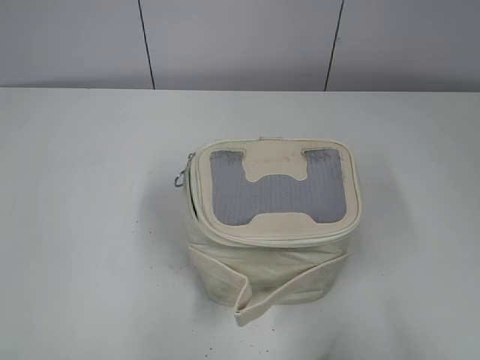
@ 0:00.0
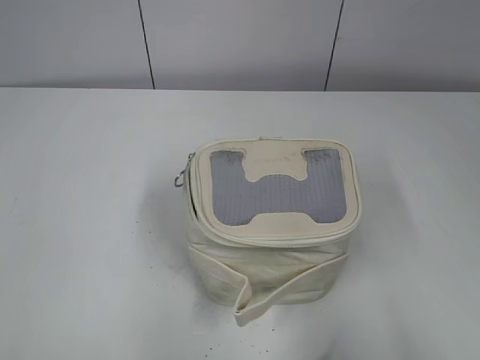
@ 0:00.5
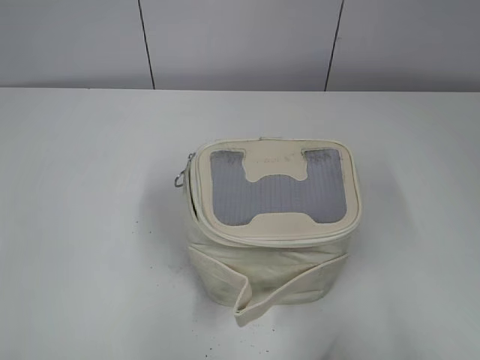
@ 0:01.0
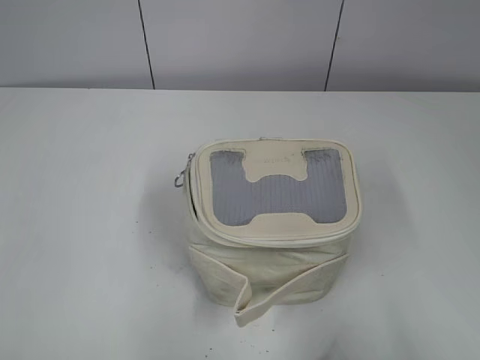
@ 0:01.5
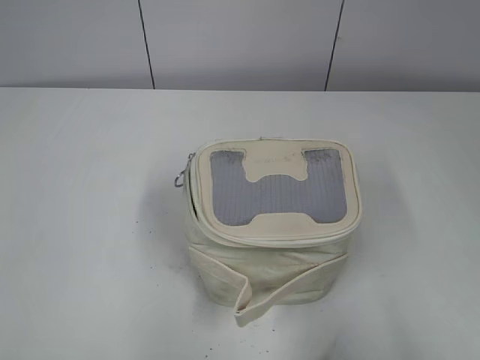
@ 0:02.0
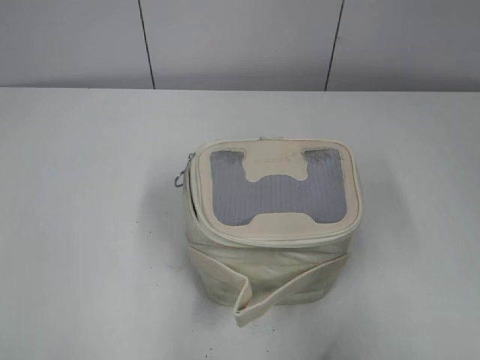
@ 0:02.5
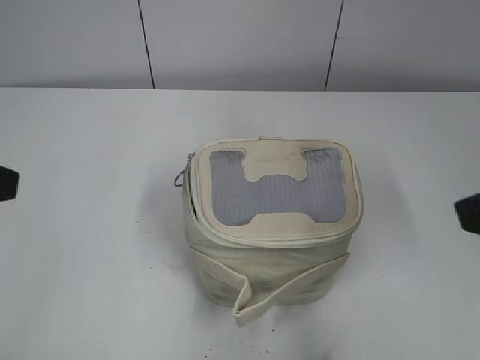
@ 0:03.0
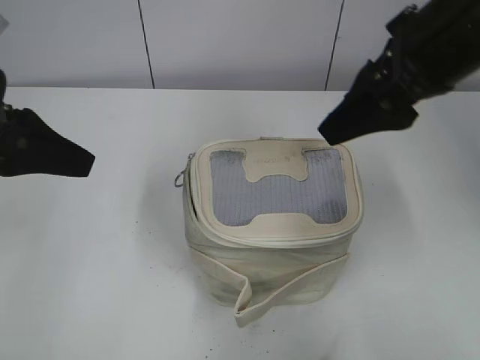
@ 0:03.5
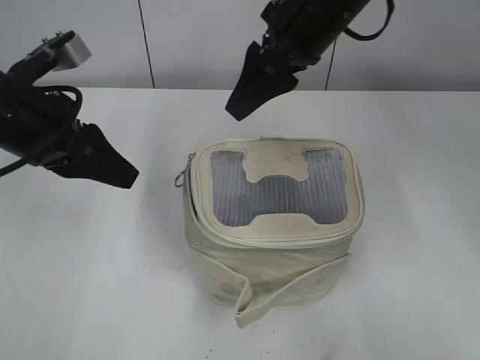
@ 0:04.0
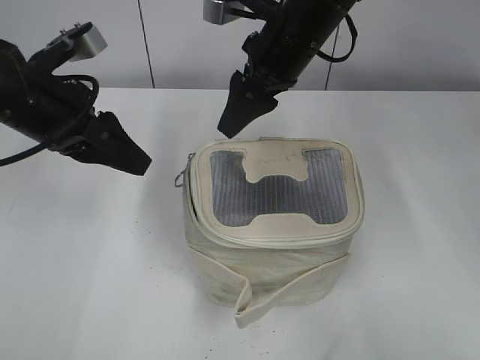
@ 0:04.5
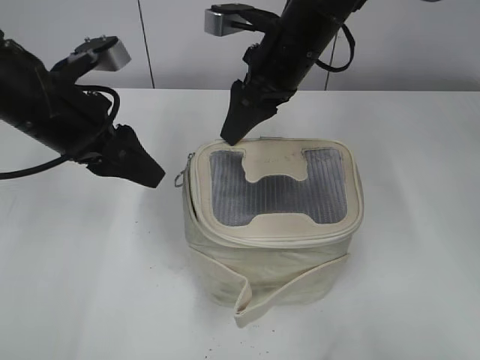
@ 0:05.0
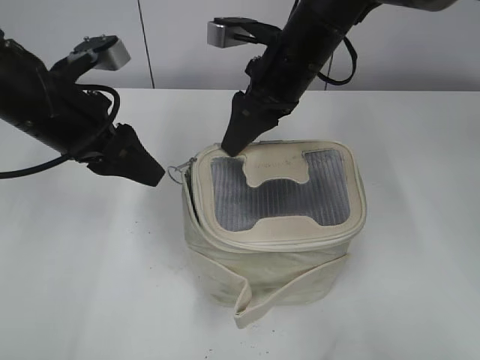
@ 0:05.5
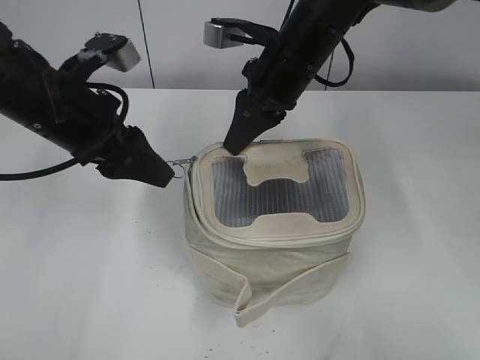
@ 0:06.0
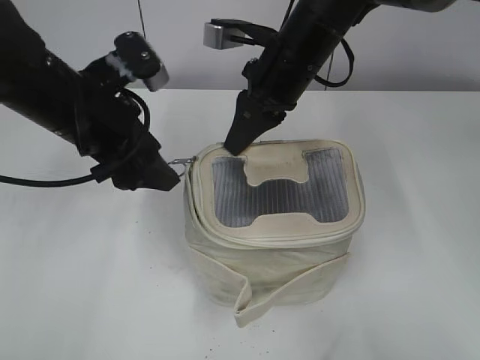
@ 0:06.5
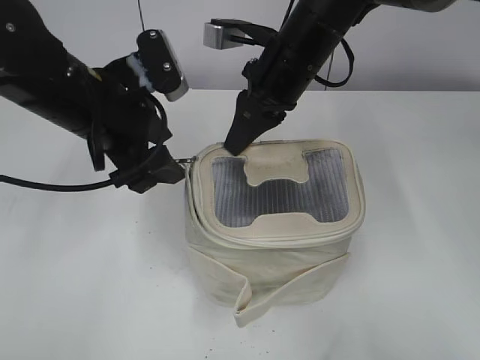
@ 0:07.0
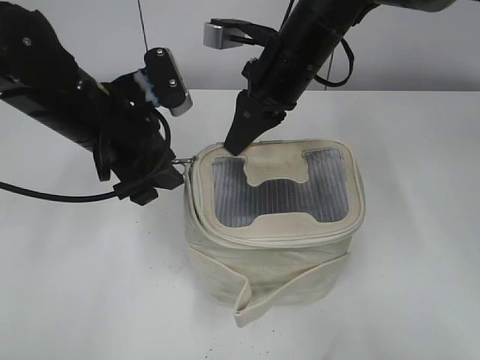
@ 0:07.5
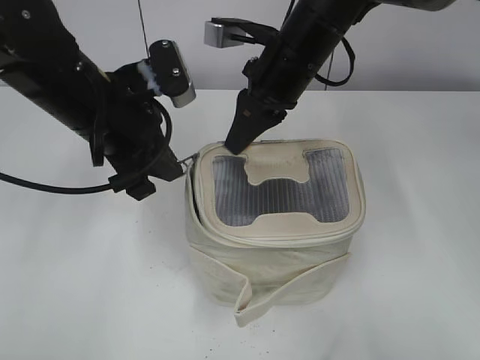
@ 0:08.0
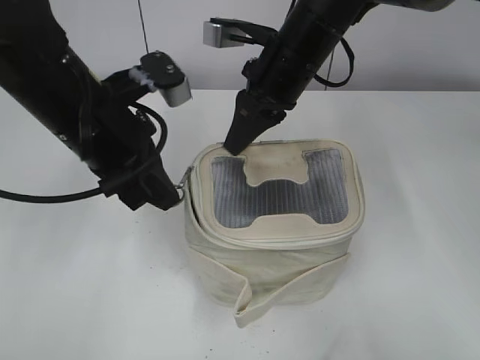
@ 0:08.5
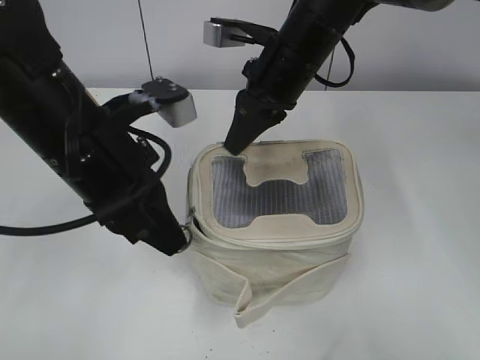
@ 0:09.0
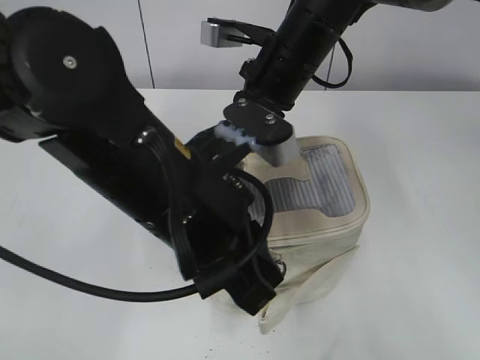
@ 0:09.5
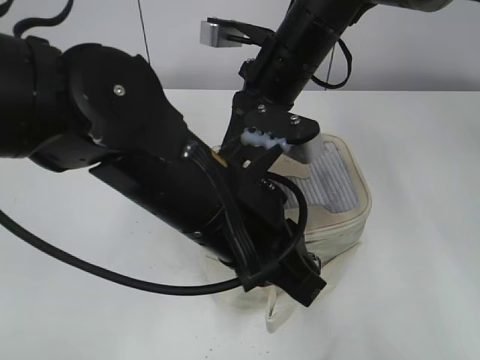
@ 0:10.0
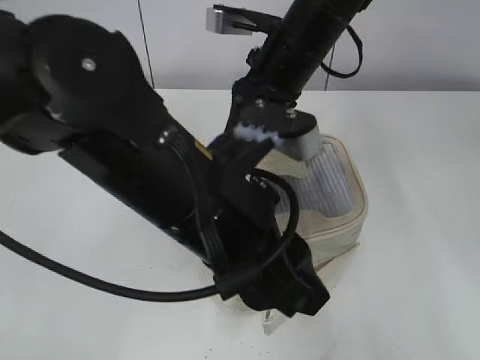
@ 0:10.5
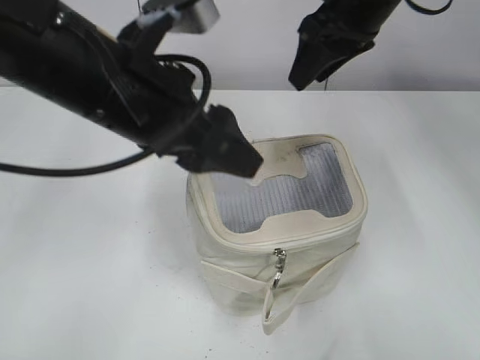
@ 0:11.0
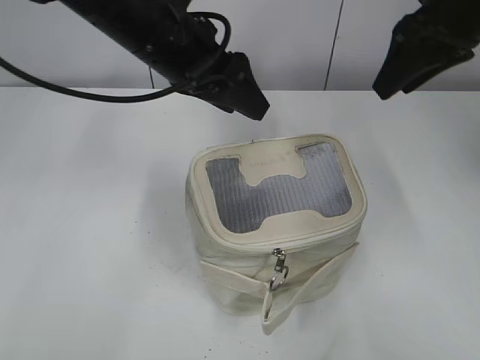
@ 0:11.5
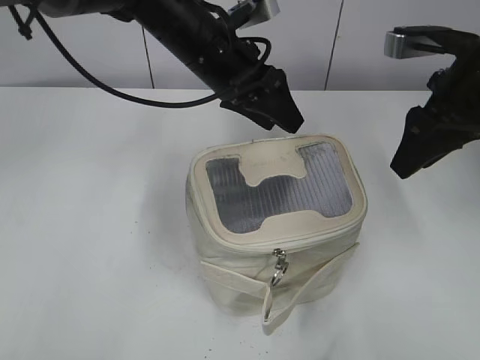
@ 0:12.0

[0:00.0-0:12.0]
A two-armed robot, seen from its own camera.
Step, 0:00.0 to 0:10.0: Zip up the bag with your left hand.
0:02.0 to 0:04.0: The left gripper moves forward and to the right, some 30 cm; the right gripper heads forward and to the left, covering approximately 40 cm.
0:04.0 to 0:06.0: The right gripper shifts some 10 cm downward, and closes its fingers.
0:06.0 to 0:08.0: The left gripper closes.
0:08.0 to 0:10.0: The left gripper moves backward and to the right, about 15 cm.
0:10.0 to 0:12.0: The left gripper is displaced forward by roughly 20 cm, and opens up. The right gripper shifts some 15 cm to the right, and opens its fingers.

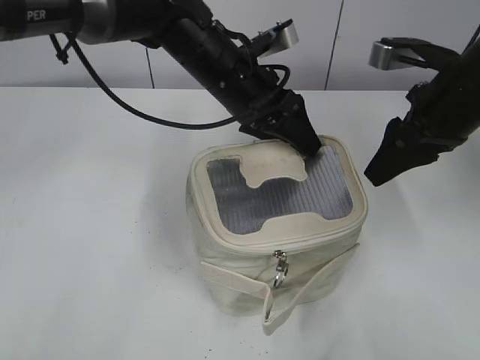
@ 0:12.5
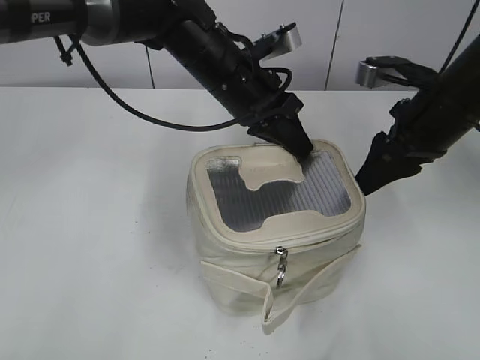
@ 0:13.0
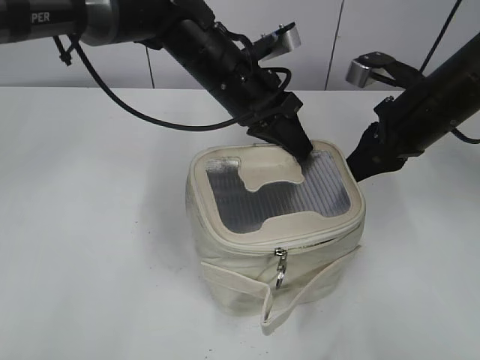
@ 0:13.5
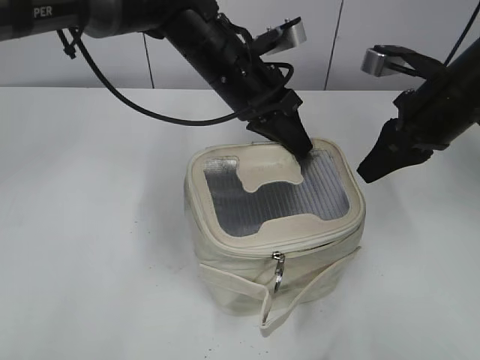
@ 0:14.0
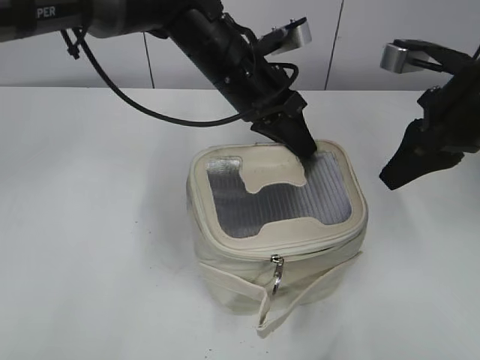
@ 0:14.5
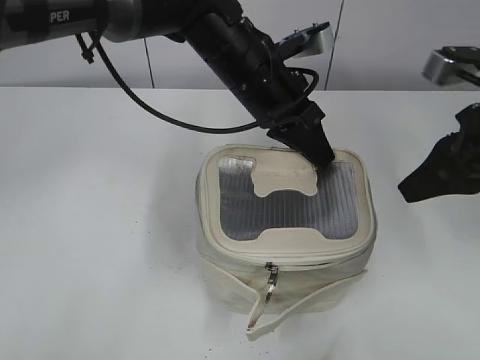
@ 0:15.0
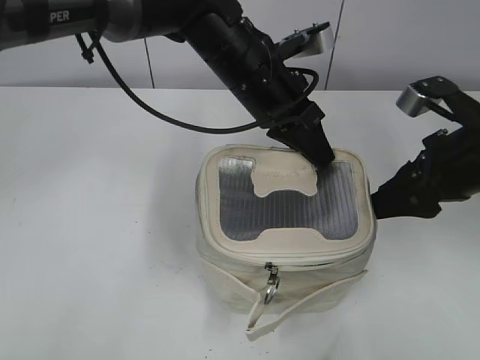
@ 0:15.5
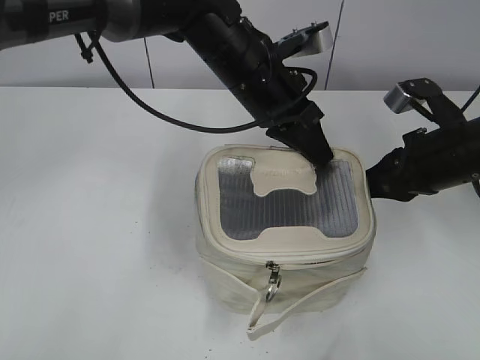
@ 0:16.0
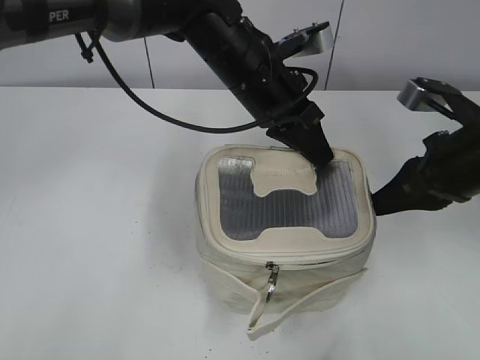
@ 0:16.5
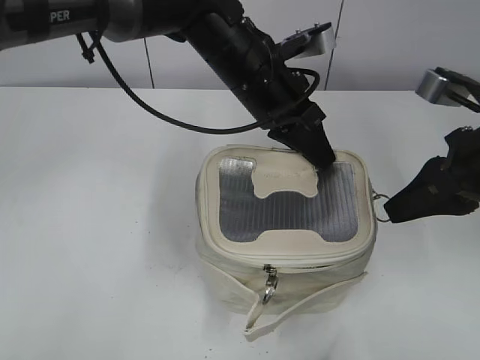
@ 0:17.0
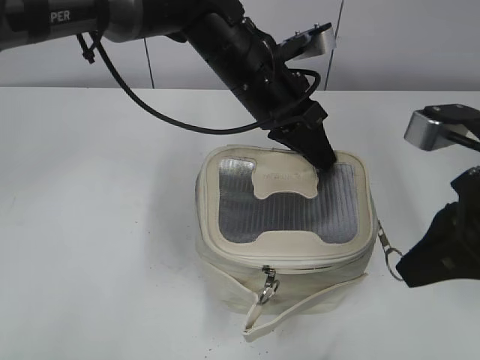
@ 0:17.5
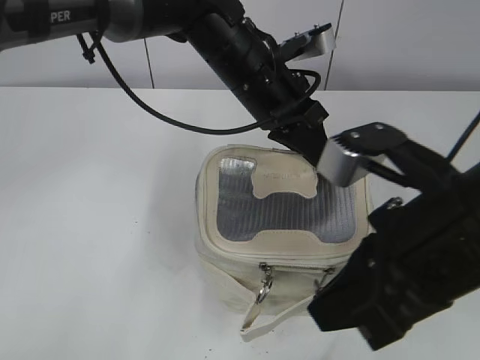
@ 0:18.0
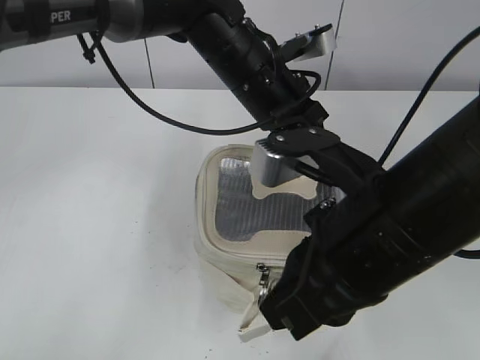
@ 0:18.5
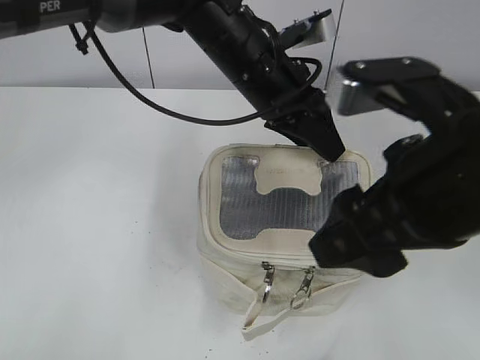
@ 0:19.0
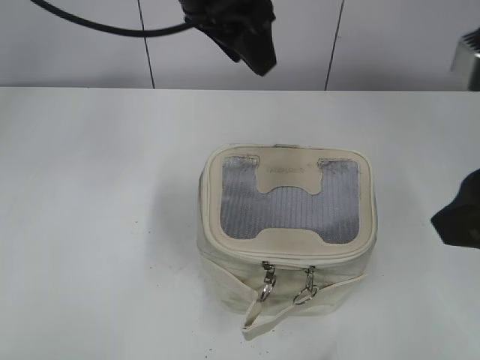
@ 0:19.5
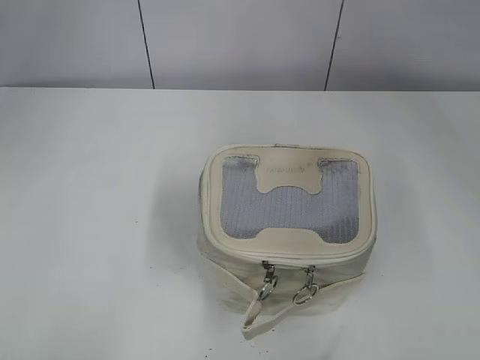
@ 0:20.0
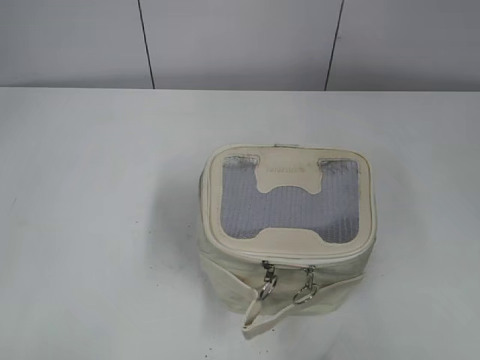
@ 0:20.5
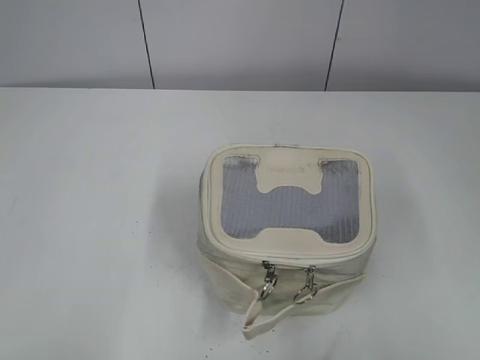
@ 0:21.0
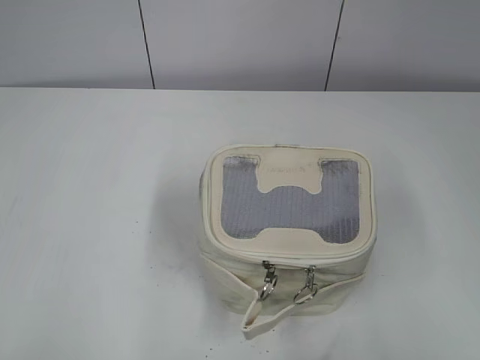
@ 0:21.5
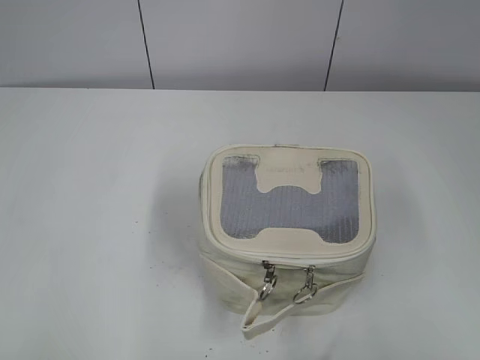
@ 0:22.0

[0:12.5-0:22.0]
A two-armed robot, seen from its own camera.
Step, 0:12.5 to 0:18.5: Zip up the bag with your right hand.
0:12.5 to 0:14.5: The left gripper closes; the right gripper closes.
0:14.5 to 0:16.5: The right gripper ends up some 5 cm from where it was, and opens, then closes again.
0:16.5 to 0:18.0: The right gripper travels backward, to the left and upward by approximately 15 cm.
0:18.0 to 0:20.0: The right gripper goes roughly 15 cm upward, to the right and backward, and opens its fingers; the left gripper travels upward and to the left by some 25 cm, and opens.
0:20.0 to 0:22.0: The left gripper heads backward, to the left and downward, covering some 40 cm. Meanwhile the right gripper travels backward and downward by about 10 cm.

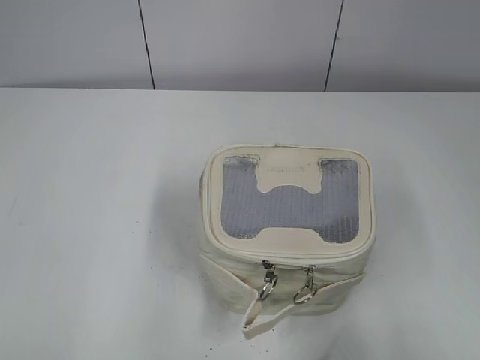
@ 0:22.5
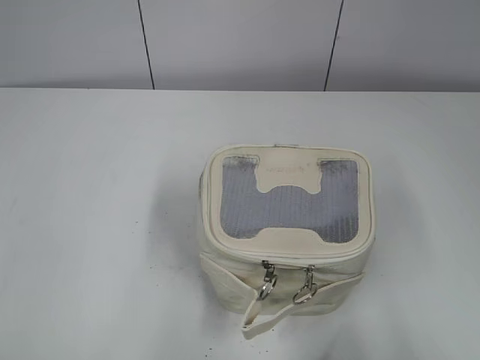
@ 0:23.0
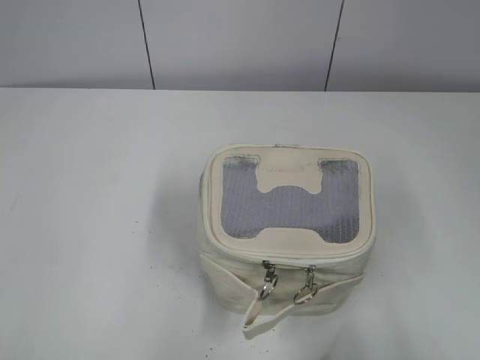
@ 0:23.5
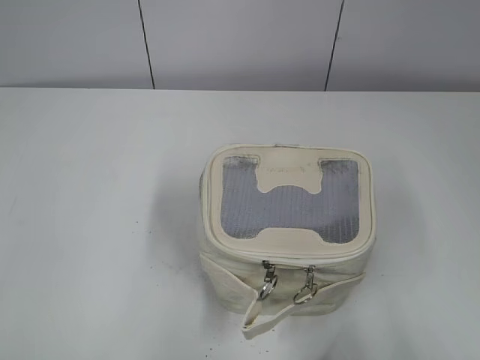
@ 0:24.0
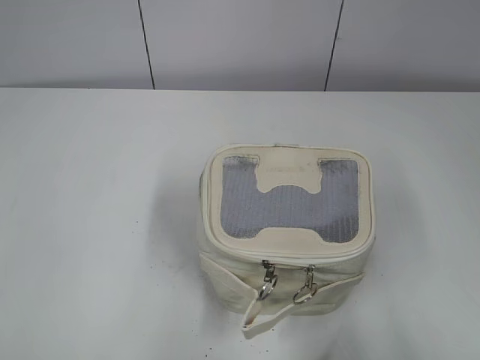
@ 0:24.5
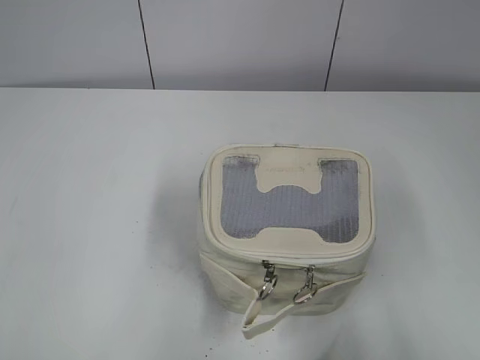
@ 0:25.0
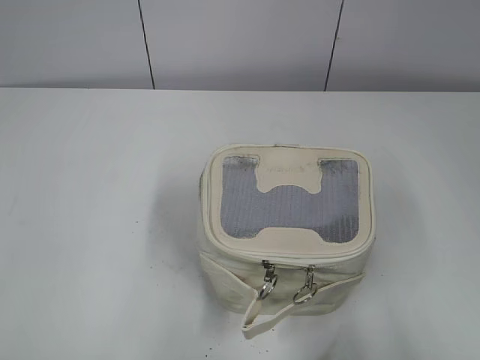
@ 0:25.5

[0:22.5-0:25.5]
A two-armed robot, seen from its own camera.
0:24.0 to 0:25.5: The two grippers keep their place.
